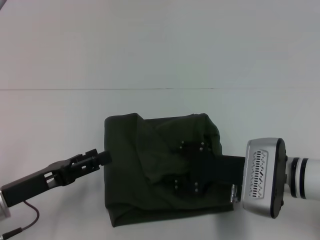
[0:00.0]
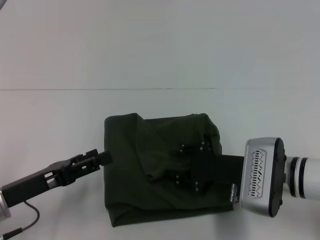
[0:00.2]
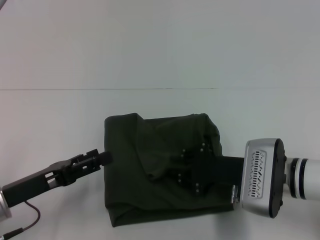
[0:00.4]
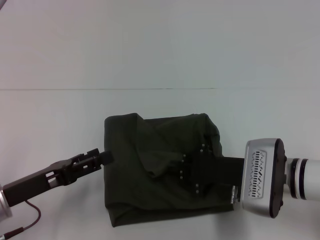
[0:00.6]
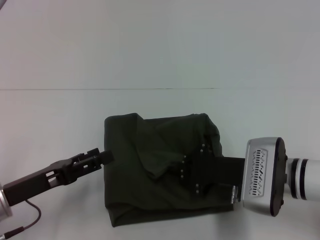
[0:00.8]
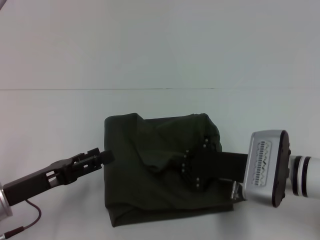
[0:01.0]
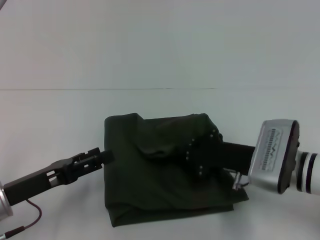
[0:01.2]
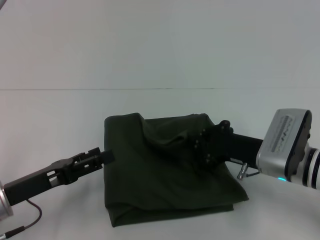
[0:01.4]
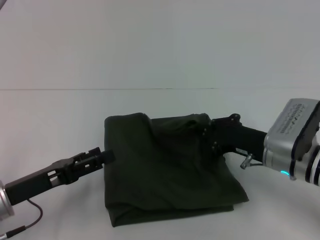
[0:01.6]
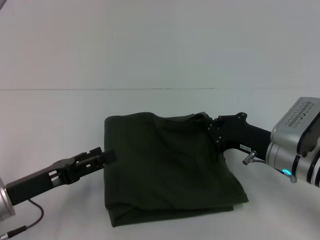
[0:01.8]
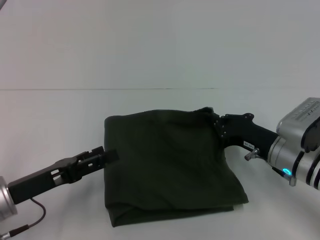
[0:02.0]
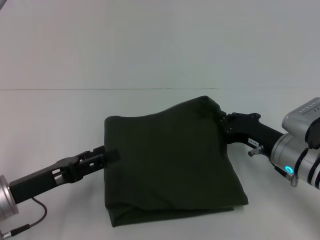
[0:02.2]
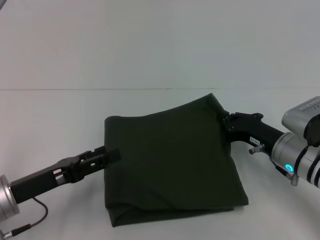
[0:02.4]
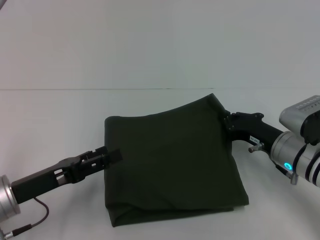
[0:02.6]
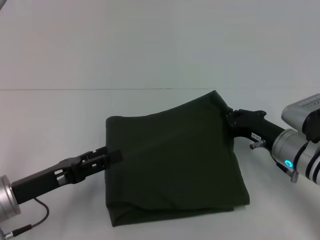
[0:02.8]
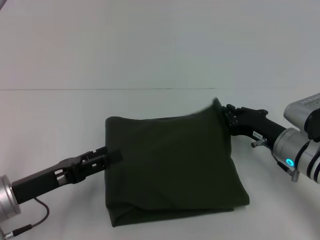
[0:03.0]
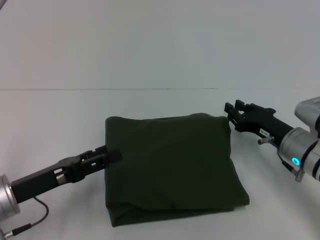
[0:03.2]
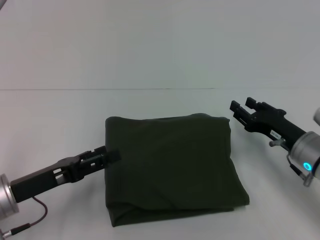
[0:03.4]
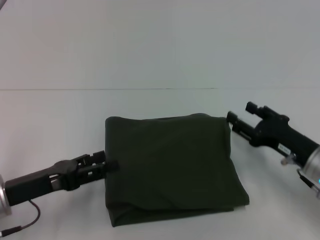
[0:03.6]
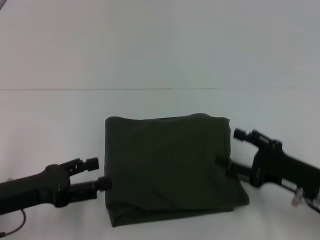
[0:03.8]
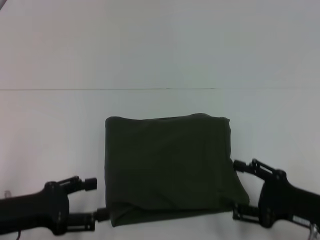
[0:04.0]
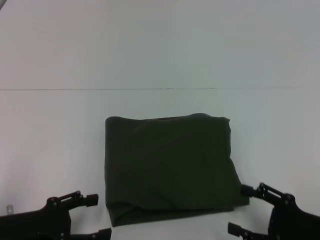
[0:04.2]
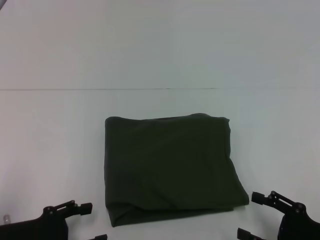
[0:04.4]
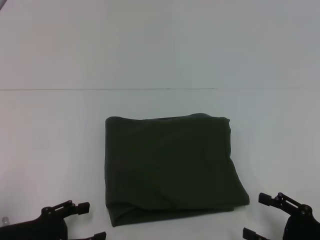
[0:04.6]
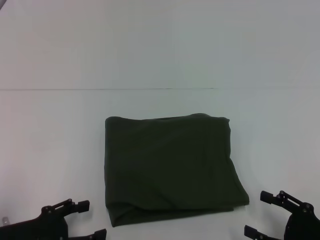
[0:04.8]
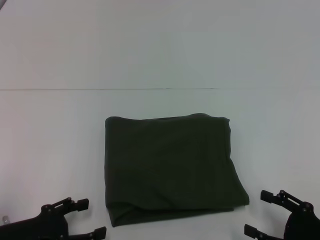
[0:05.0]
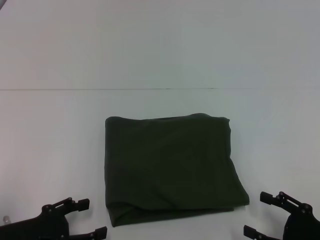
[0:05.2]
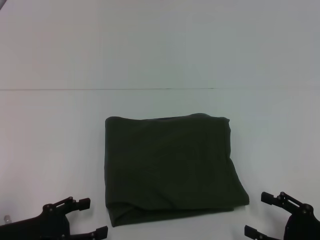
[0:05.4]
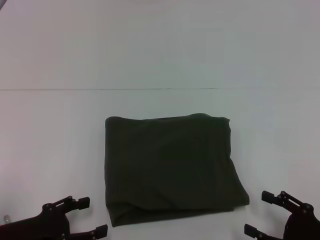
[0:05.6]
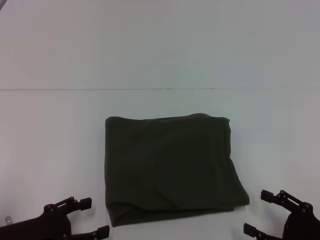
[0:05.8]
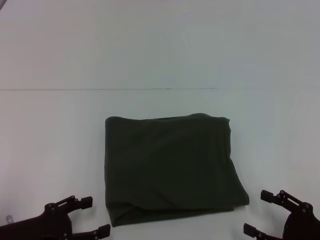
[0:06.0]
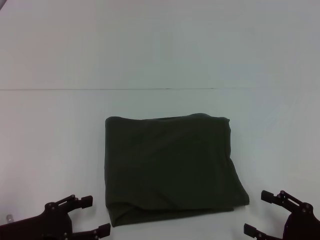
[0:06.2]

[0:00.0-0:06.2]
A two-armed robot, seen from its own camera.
0:00.0 to 0:01.6: The right gripper closes up.
0:03.2 to 0:04.6: The right gripper shifts about 15 cm backward, and opens up. The left gripper moves about 5 cm.
0:04.6 to 0:06.2: Both grippers stay about where they are.

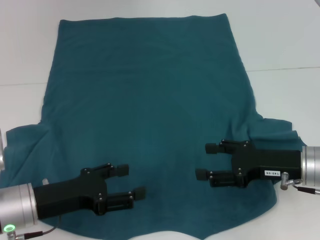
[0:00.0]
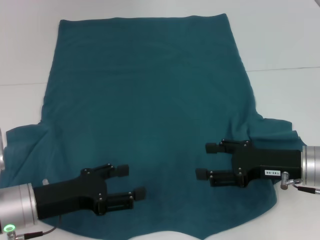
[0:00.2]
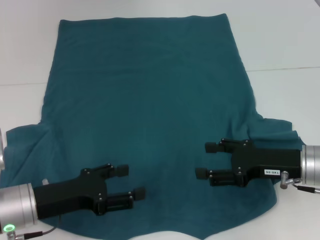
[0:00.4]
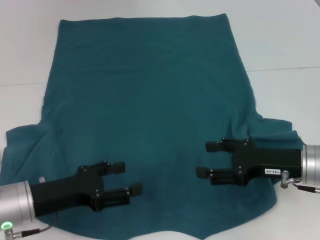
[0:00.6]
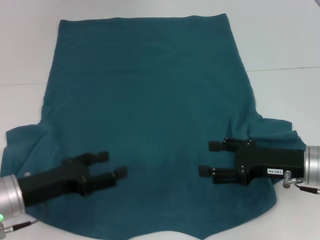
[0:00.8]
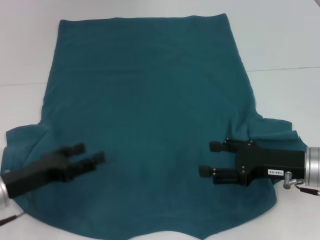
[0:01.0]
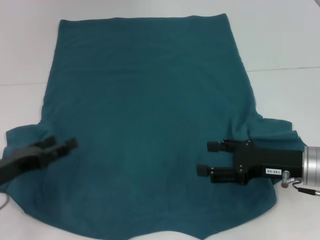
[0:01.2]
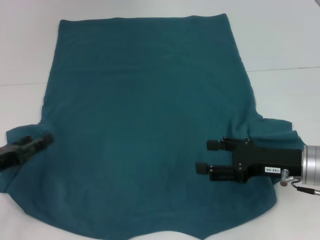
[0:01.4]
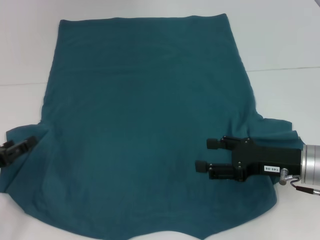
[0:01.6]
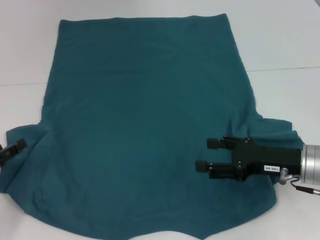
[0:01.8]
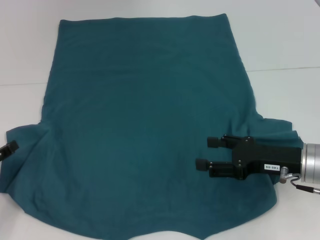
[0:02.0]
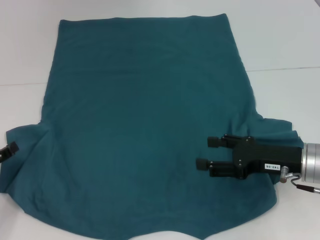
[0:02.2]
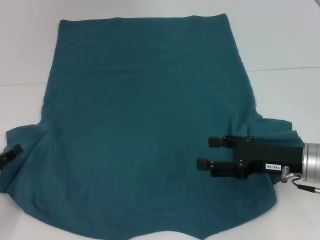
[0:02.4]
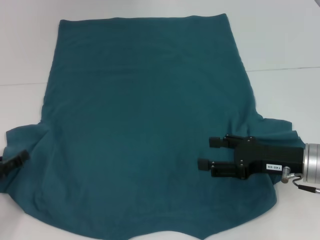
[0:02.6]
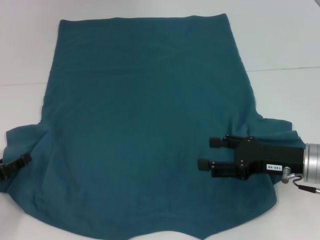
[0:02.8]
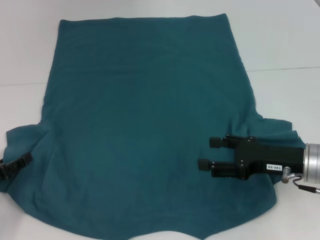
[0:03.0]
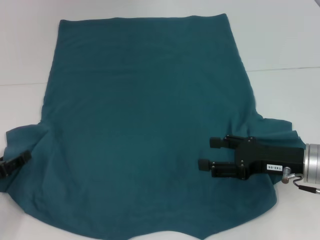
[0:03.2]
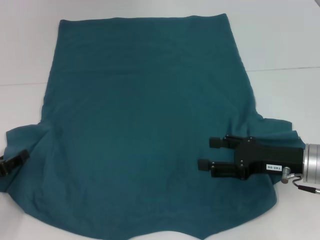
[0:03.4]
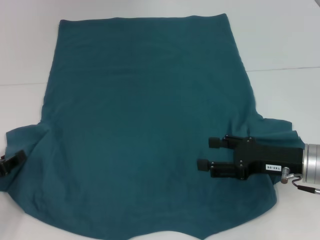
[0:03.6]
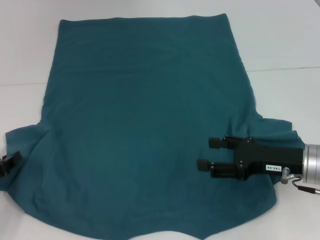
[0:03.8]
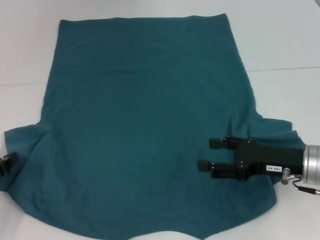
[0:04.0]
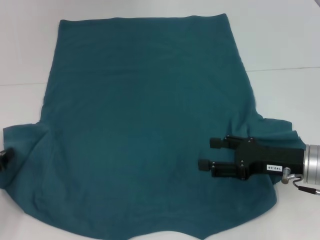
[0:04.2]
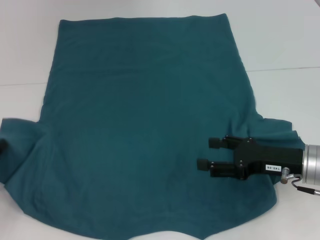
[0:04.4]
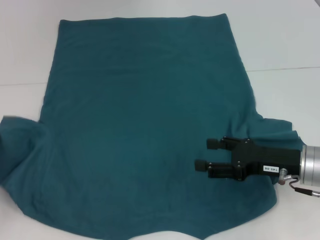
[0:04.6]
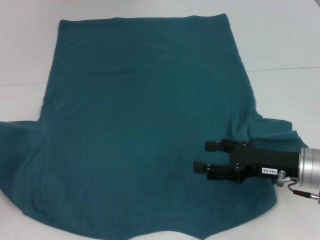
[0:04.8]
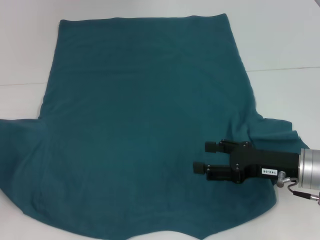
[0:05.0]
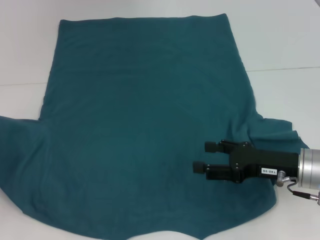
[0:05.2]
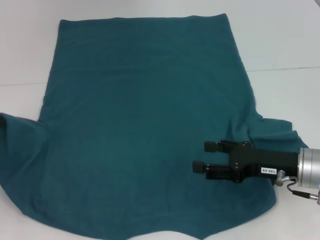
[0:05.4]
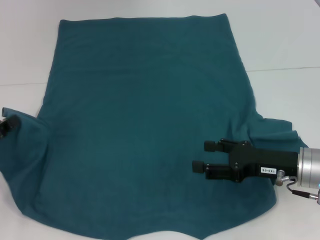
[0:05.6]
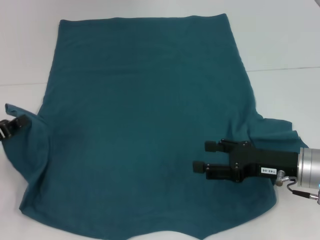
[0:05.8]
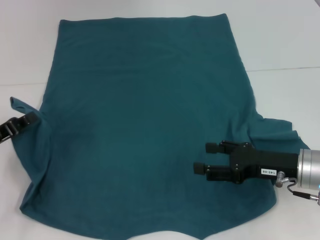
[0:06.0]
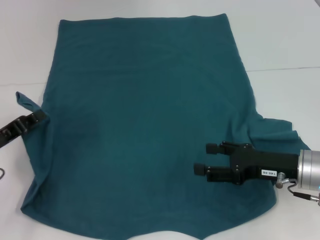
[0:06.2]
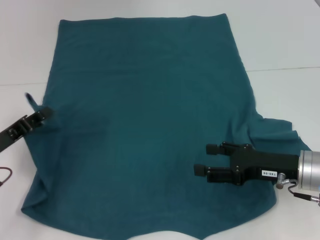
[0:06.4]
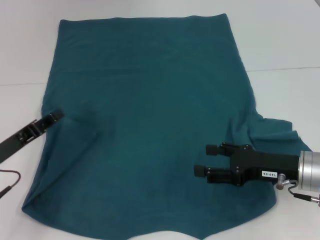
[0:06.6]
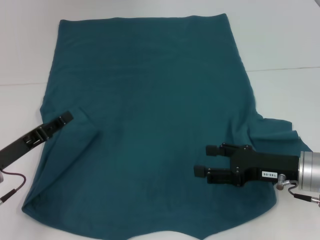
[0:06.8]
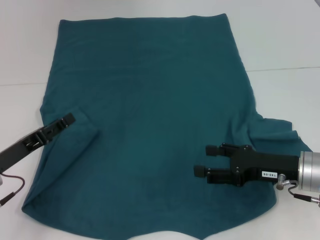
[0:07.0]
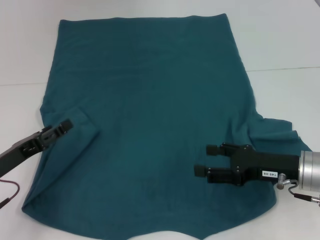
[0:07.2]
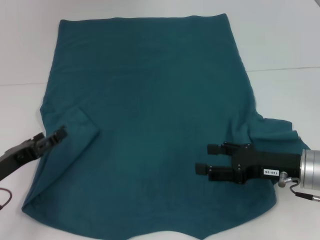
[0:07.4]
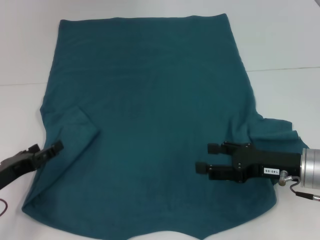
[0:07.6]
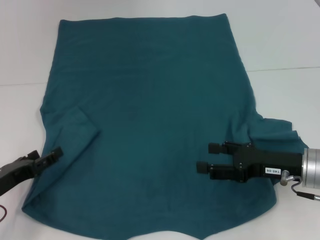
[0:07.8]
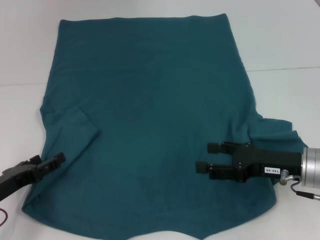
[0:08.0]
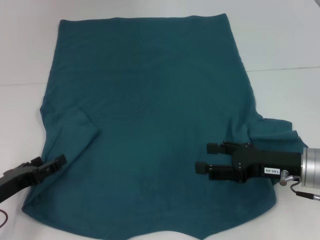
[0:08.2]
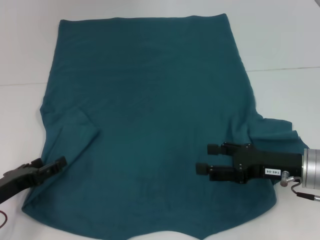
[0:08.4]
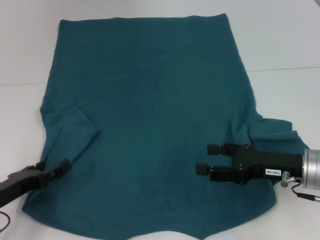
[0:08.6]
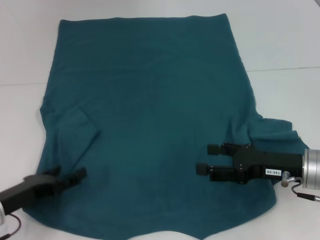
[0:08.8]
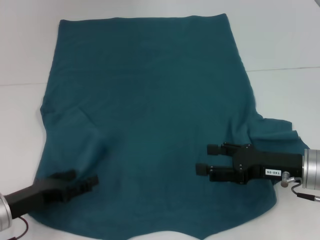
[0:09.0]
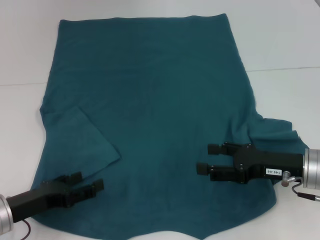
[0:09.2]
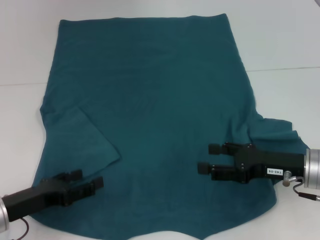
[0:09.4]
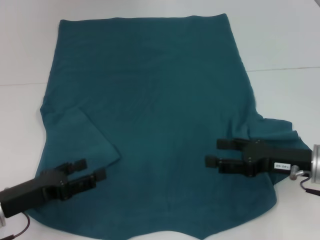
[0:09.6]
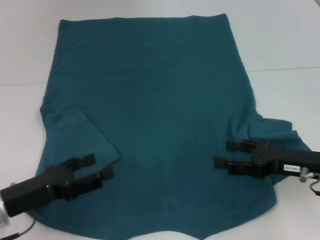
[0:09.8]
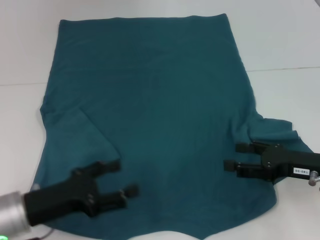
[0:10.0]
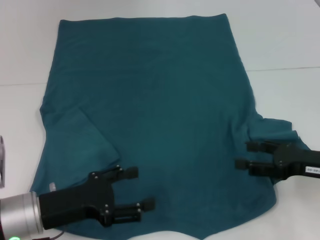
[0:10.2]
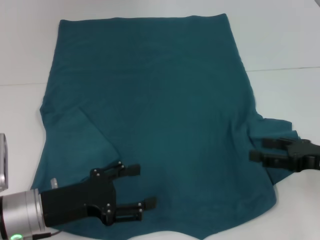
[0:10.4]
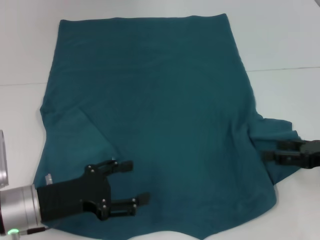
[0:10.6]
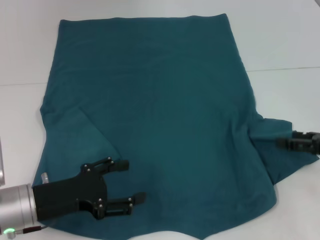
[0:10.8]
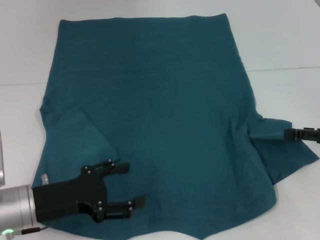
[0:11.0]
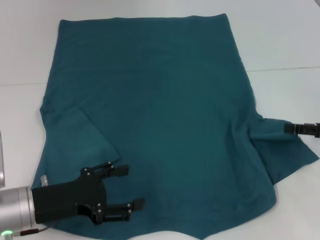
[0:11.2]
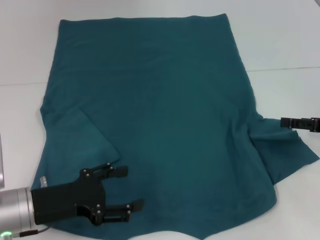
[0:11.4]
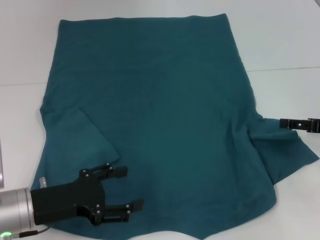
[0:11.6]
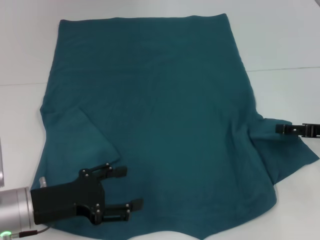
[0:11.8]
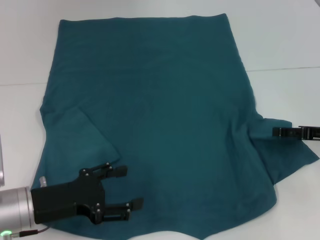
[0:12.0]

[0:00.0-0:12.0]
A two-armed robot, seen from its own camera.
Step, 0:00.0 to 0:10.2: Fold the bottom left sleeve with your left hand.
0:00.0 to 0:01.6: The left gripper goes about 10 cm to the left.
0:01.6 to 0:03.0: The grippers make only small movements.
0:03.0 to 0:04.4: The left gripper closes its fingers.
0:04.4 to 0:06.0: The grippers move only a little.
0:06.0 to 0:07.6: The left gripper ends up roughly 5 cm from where it was, and opens up.
0:07.6 to 0:09.0: The grippers stay close to where they were, moving slightly.
0:09.0 to 0:10.4: The grippers both shift to the right by approximately 5 cm.
0:10.4 to 0:12.0: The right gripper moves forward, roughly 5 cm.

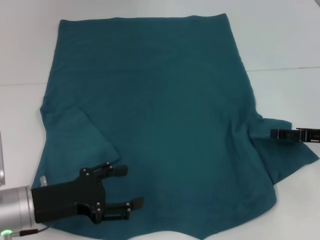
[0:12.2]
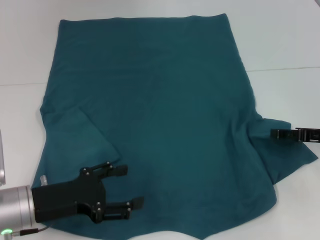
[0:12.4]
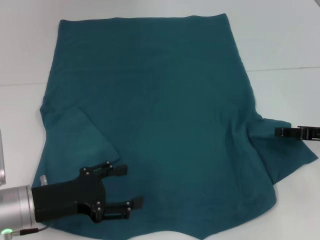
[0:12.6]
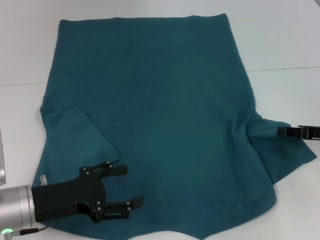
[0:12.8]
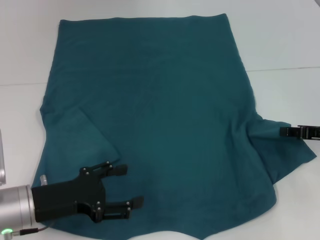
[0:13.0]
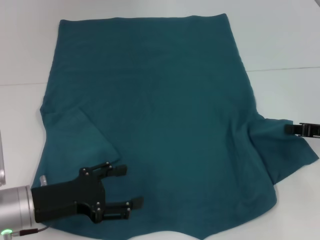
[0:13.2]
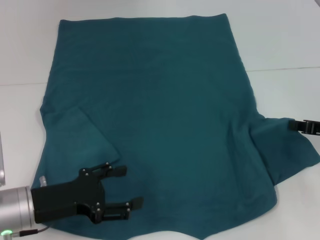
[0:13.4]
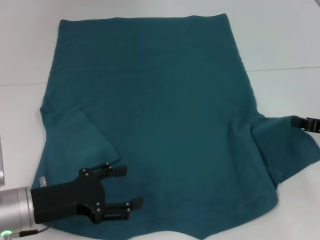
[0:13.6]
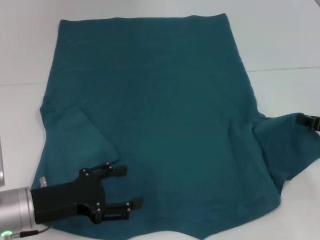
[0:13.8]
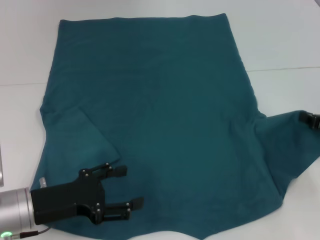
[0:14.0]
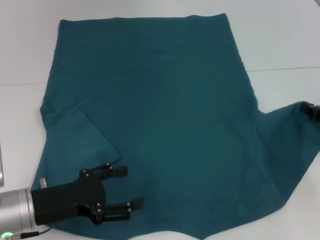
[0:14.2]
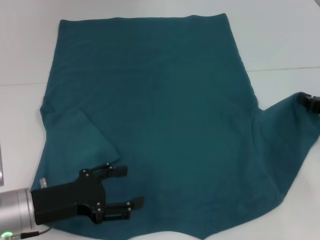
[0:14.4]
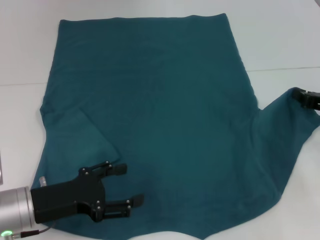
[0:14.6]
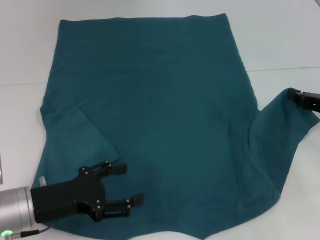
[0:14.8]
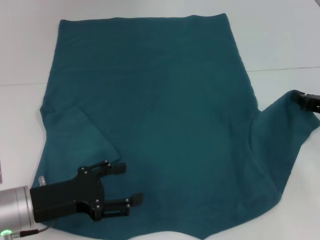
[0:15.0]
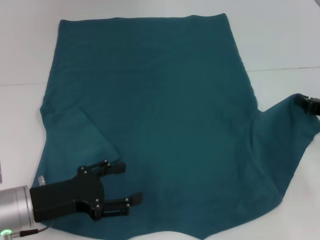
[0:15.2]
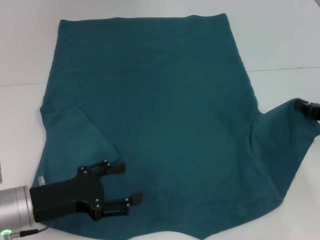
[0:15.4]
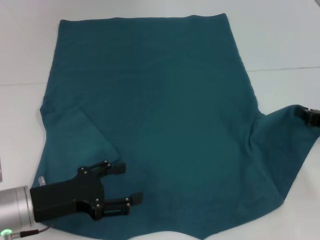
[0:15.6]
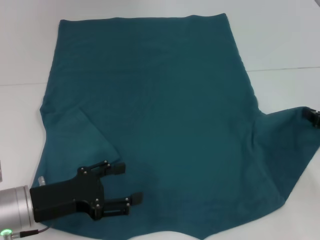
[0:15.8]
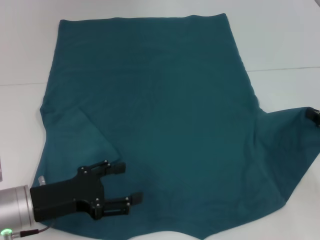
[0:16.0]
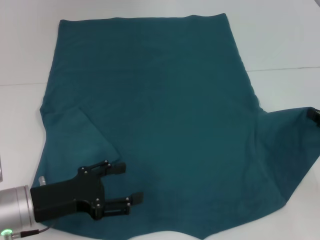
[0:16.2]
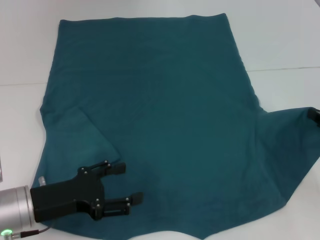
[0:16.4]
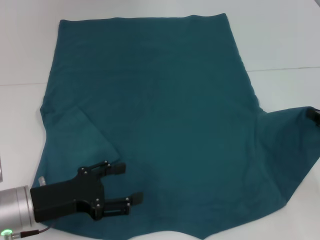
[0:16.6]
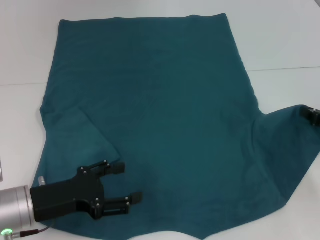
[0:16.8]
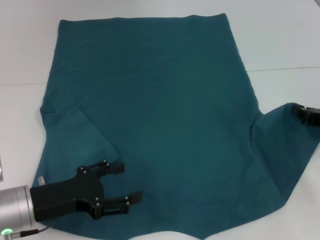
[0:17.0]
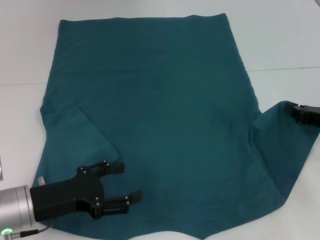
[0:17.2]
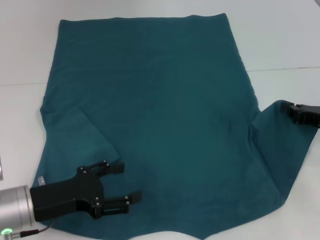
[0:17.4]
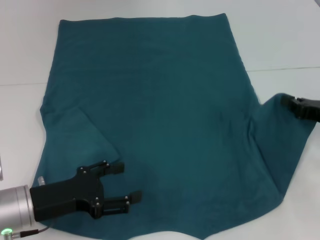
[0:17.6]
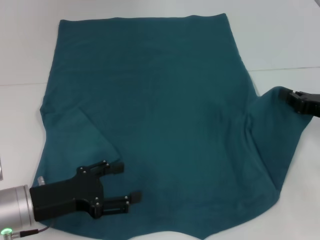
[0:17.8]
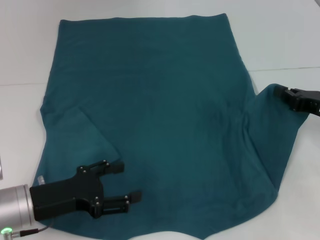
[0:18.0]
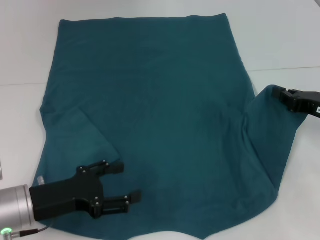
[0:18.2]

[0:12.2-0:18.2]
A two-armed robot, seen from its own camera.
0:12.2 to 0:13.8: The right gripper closes its fingers.
0:13.8 to 0:16.6: There are only small adjustments of the grippers.
0:16.6 to 0:18.2: The right gripper shifts by some 5 cm.
